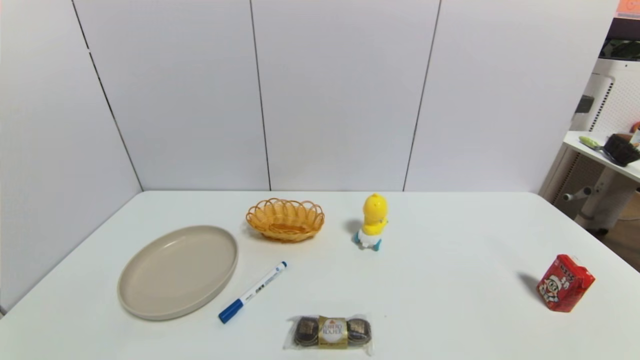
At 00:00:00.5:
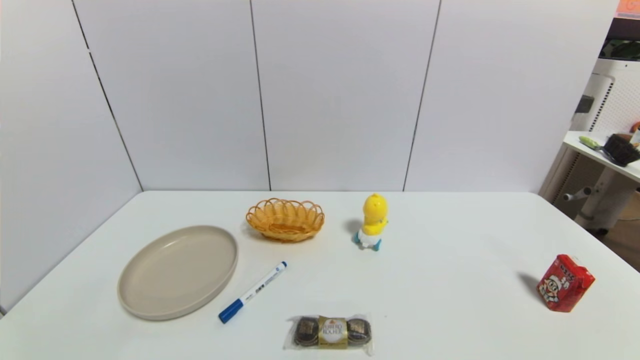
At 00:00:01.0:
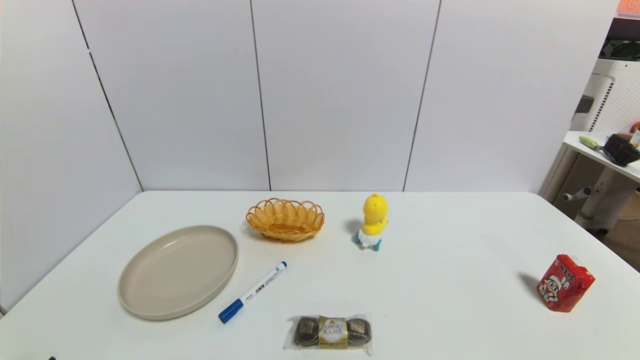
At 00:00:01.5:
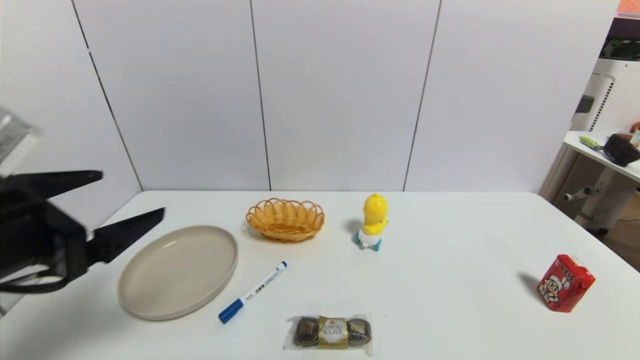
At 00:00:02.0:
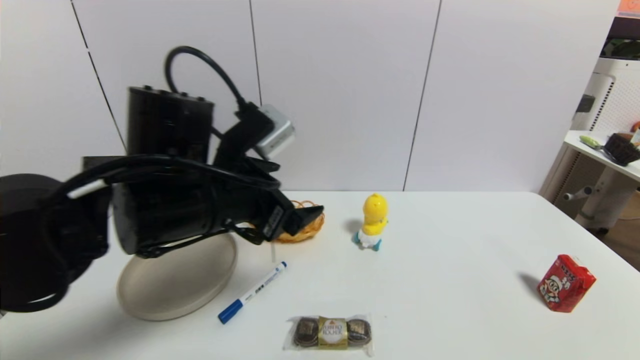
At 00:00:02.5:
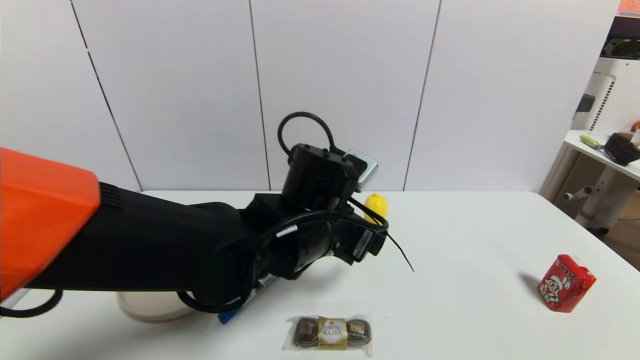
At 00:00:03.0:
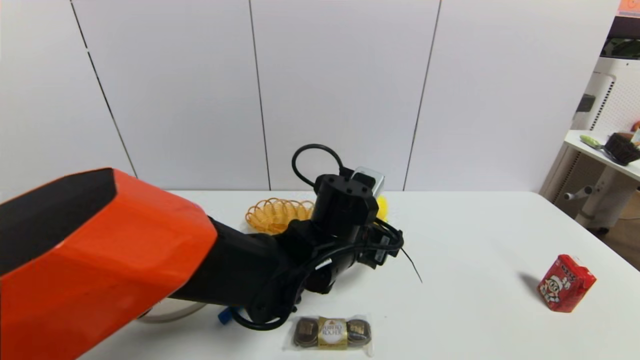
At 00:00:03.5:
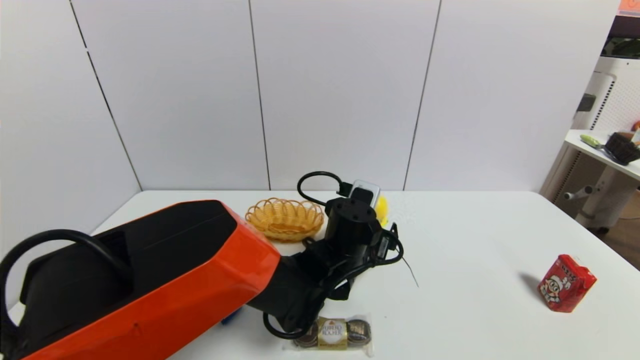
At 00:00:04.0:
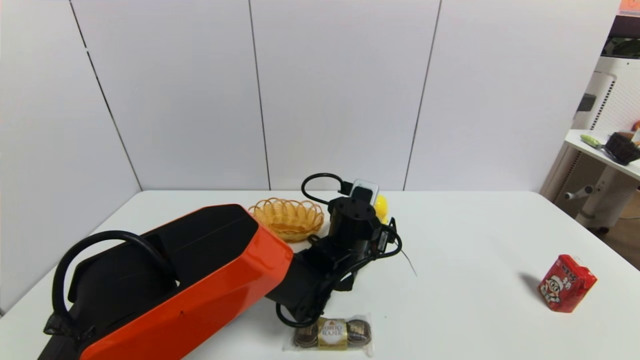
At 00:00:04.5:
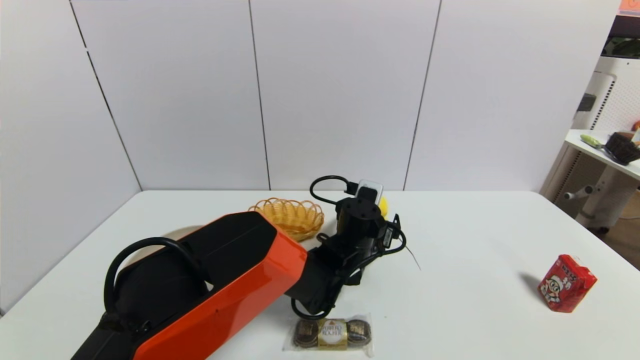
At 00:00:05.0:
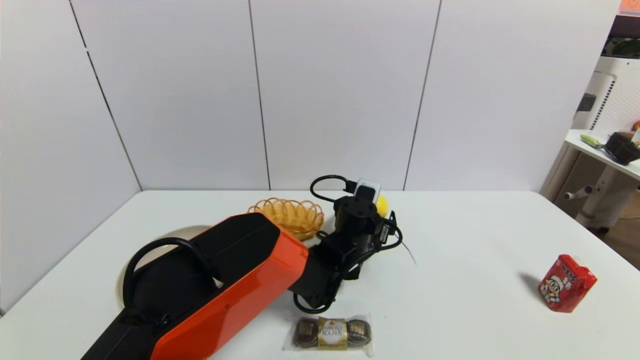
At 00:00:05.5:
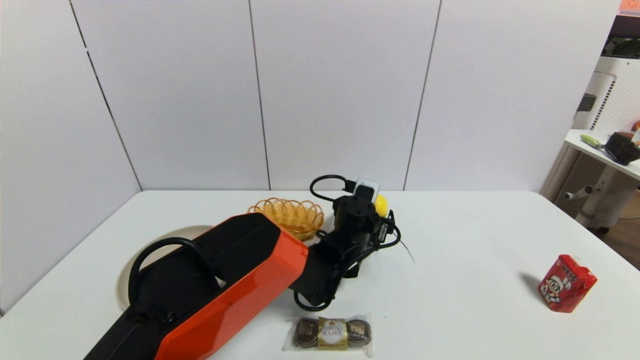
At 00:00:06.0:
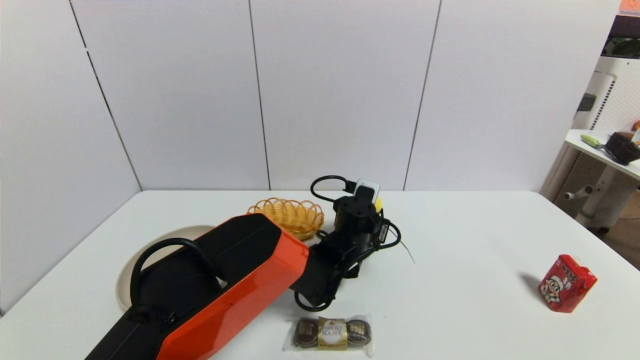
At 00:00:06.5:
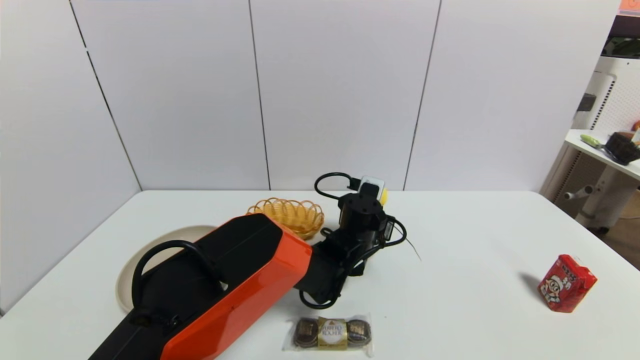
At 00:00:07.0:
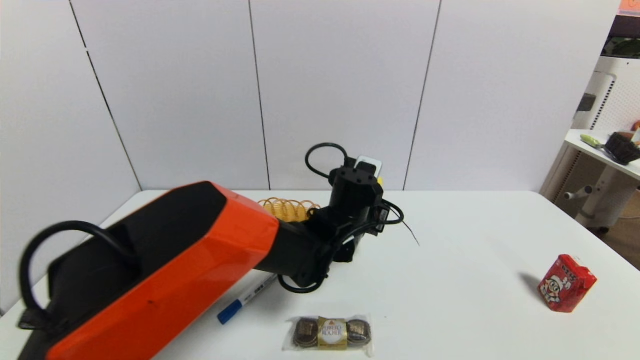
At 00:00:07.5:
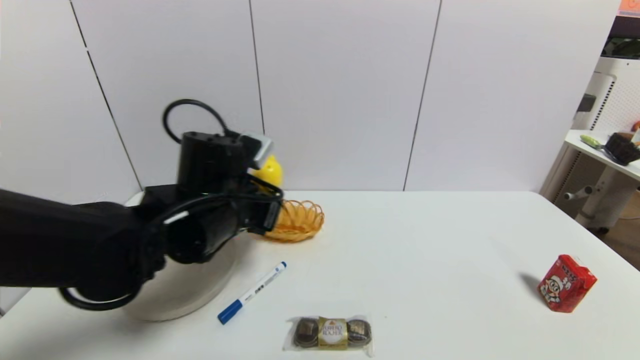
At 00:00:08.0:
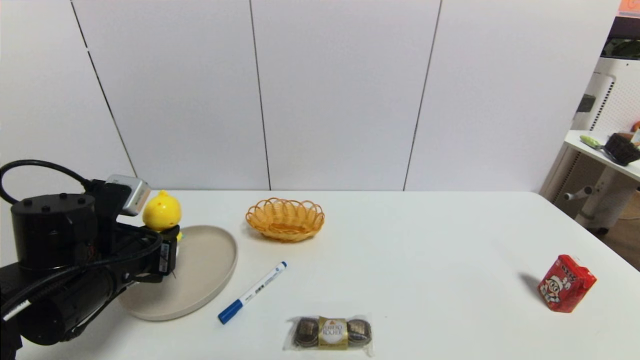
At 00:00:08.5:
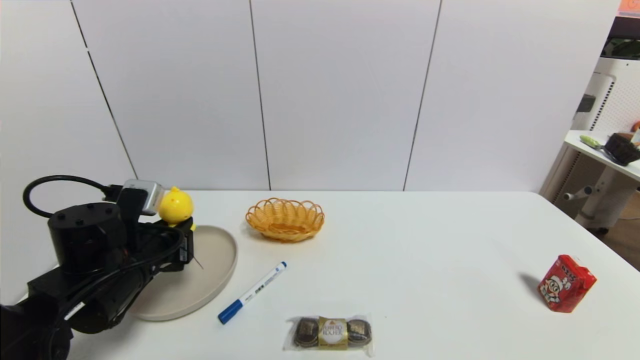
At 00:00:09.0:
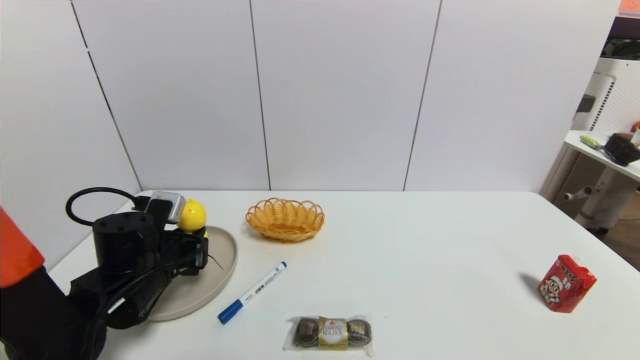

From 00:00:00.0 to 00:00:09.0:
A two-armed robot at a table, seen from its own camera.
Task of the whole recording: use a gripper to pick the target object and place on the brown plate.
Step, from 00:00:00.0 to 00:00:07.0: Grasp the duck toy with the left gripper.
From 00:00:00.0 to 00:00:02.0: The left gripper heads forward, to the right and upward, covering roughly 35 cm.
From 00:00:02.0 to 00:00:04.5: The left gripper moves to the right, downward and forward, approximately 25 cm.
From 00:00:04.5 to 00:00:07.0: The left gripper travels upward by about 5 cm, and closes.
From 00:00:07.0 to 00:00:09.0: The left gripper moves to the left, roughly 25 cm.

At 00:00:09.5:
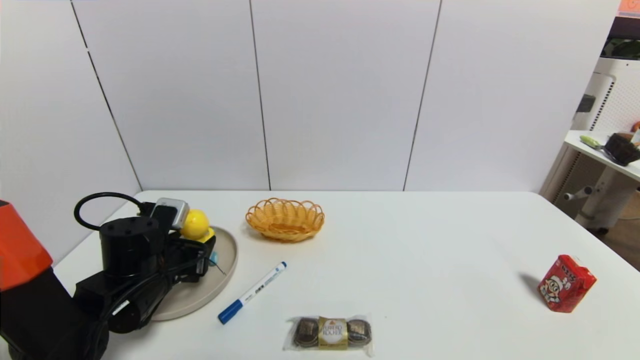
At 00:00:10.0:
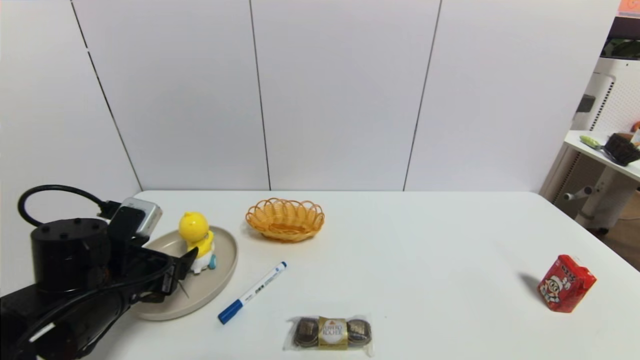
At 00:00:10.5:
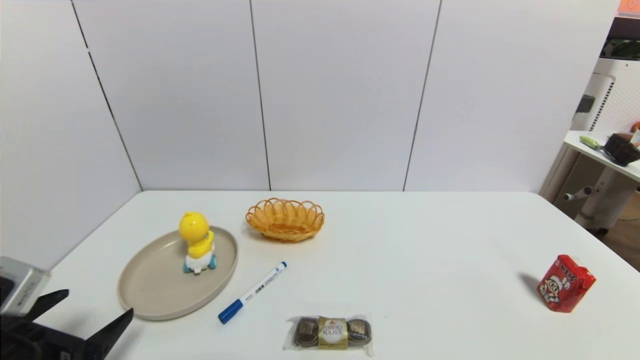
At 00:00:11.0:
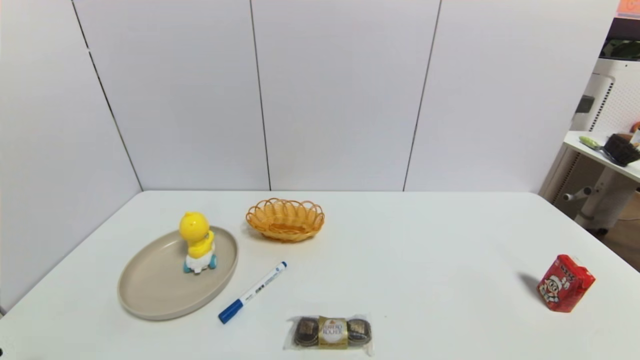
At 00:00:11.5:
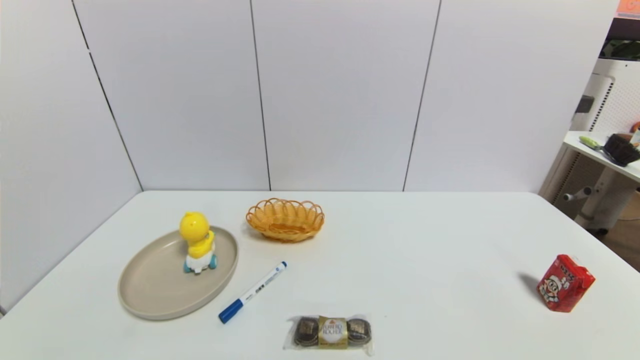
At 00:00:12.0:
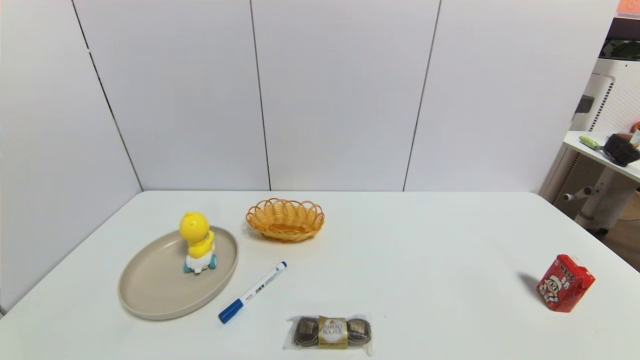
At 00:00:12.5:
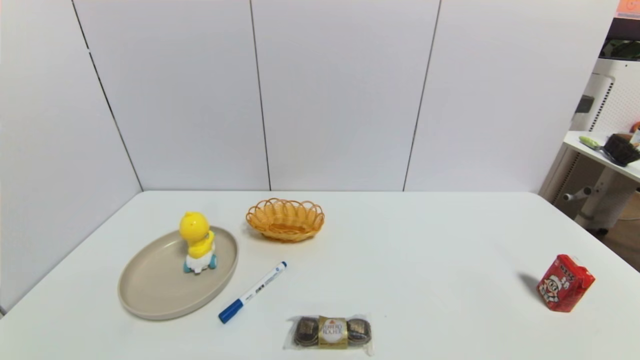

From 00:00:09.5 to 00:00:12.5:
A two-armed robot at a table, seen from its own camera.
Task of the whole recording: use a gripper to pick the target object and place on the brown plate.
From 00:00:09.5 to 00:00:11.0: The left gripper moves backward, roughly 25 cm, and opens its fingers.

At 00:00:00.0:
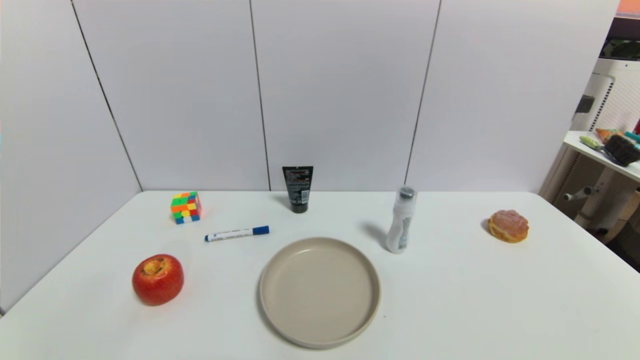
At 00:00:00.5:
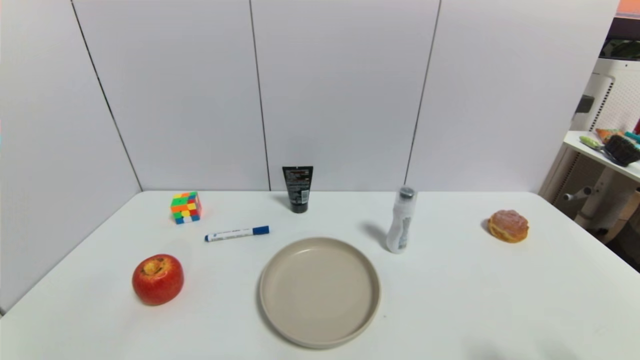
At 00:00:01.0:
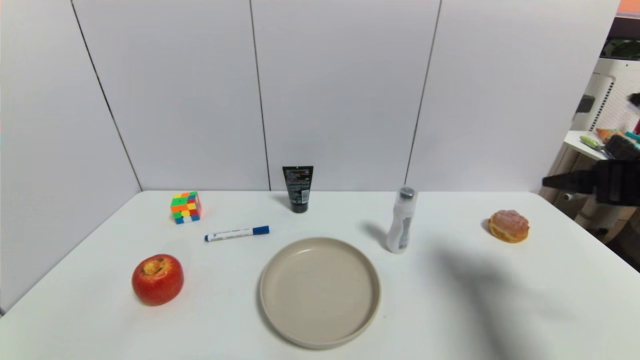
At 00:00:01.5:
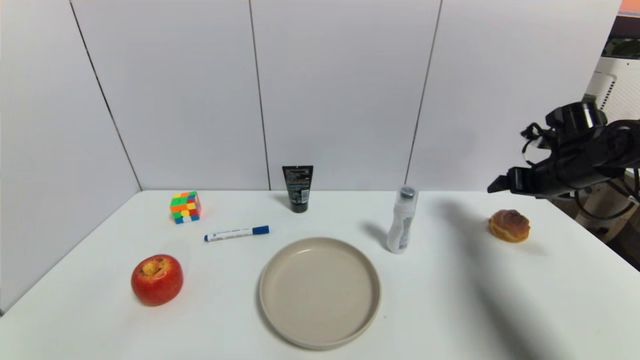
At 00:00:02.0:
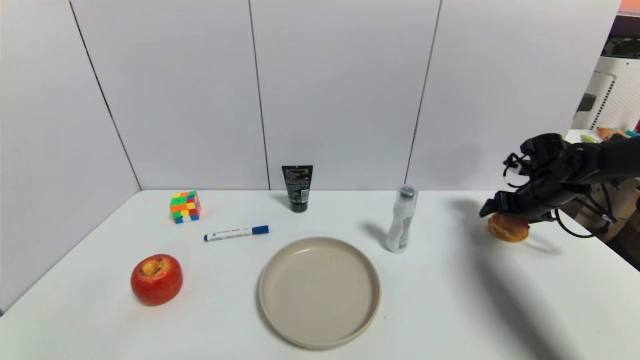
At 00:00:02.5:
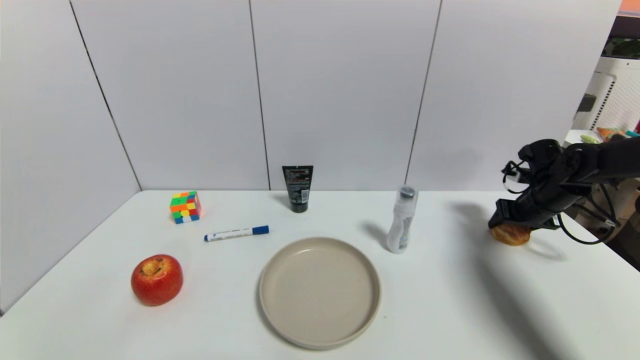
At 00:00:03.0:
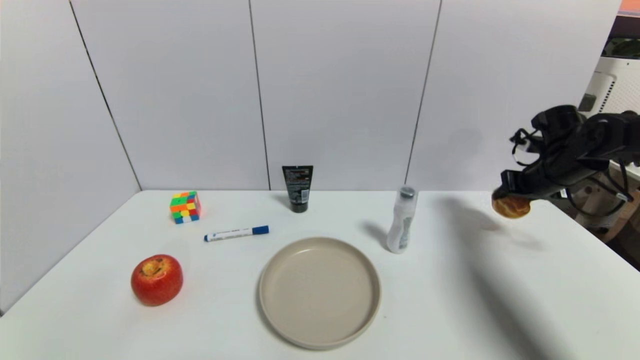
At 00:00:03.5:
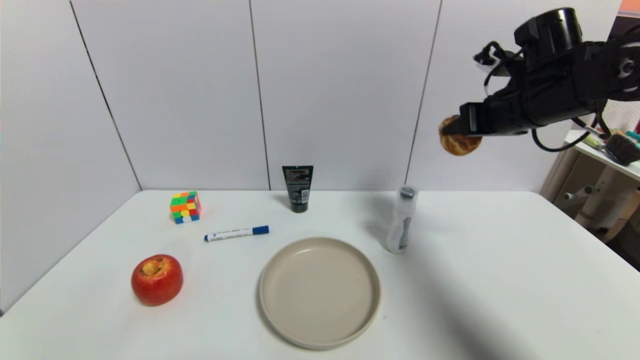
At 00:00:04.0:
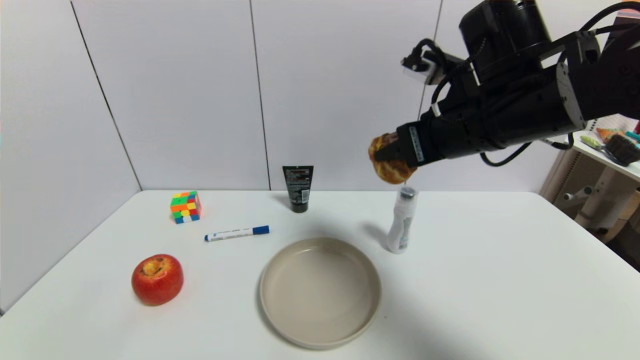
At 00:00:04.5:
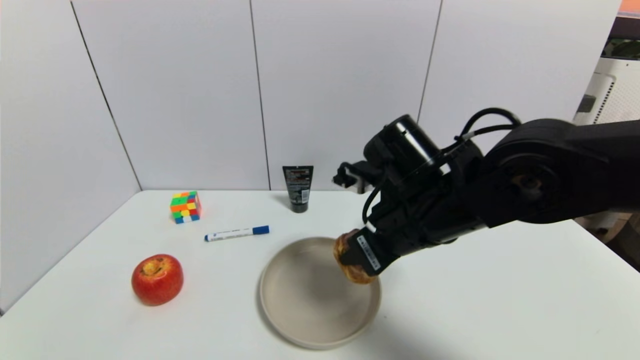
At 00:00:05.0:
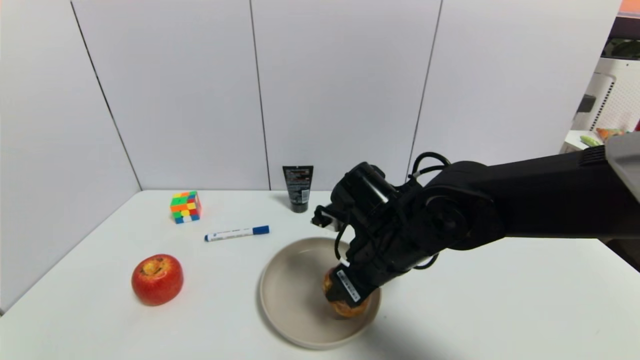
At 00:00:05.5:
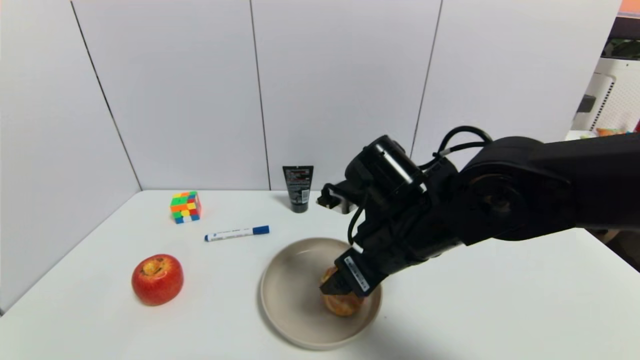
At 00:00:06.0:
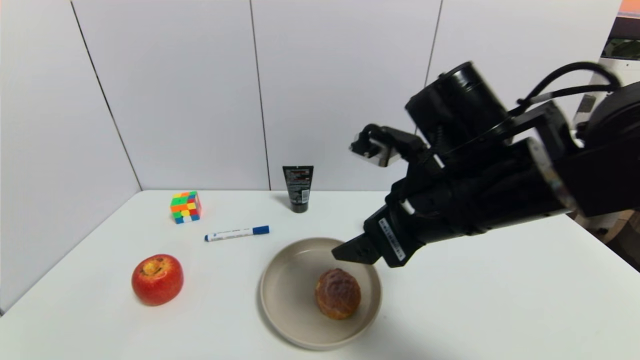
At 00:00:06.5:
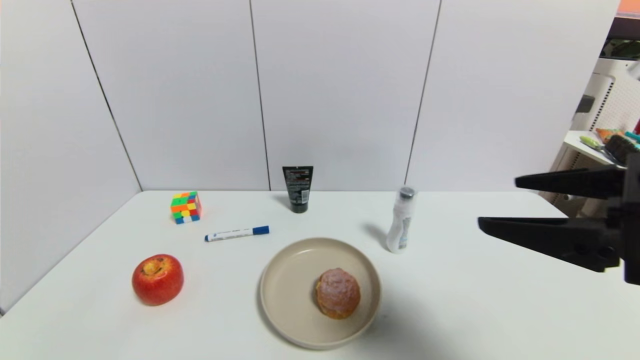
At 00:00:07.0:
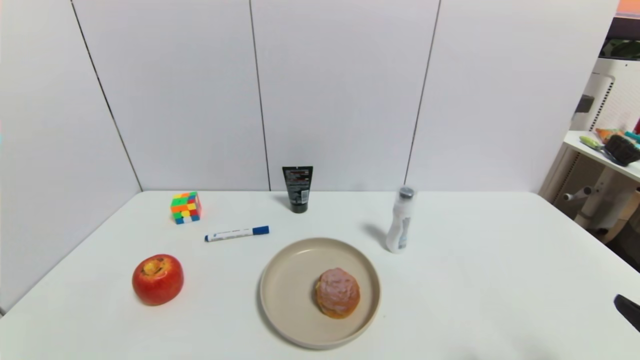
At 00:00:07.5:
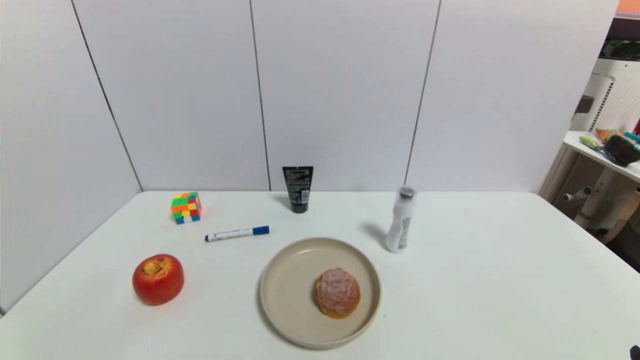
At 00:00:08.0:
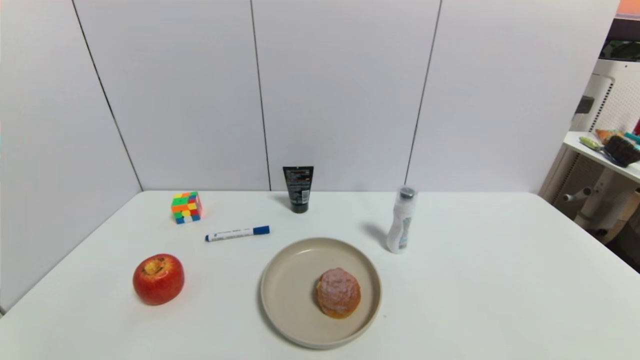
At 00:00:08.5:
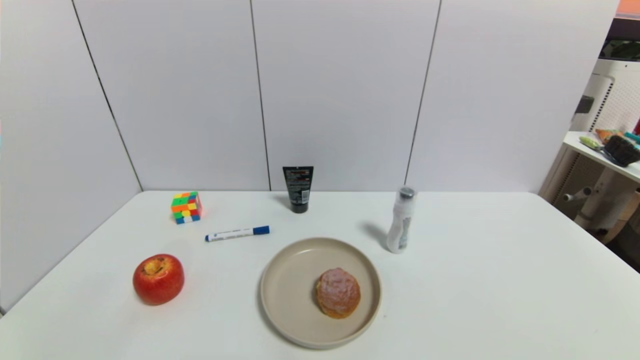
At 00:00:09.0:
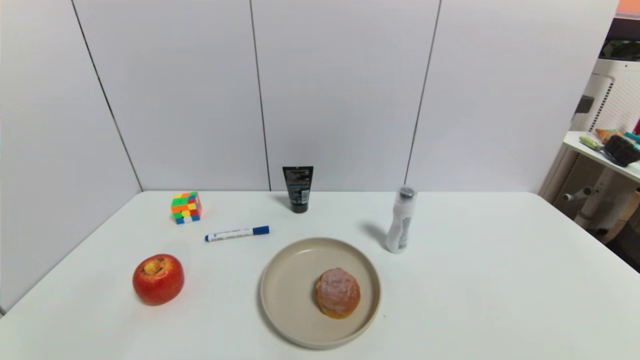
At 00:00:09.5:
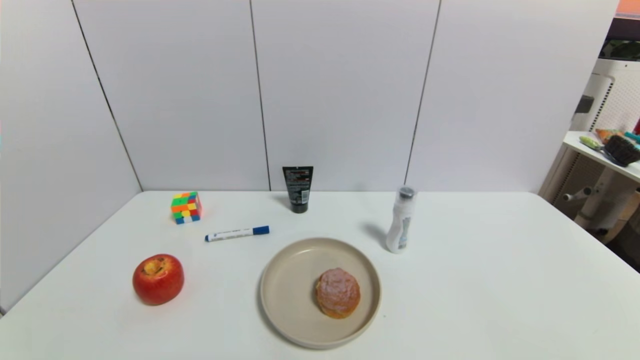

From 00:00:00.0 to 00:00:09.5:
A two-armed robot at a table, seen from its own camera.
Task of the whole recording: use a gripper to pick the target object and place on the brown plate.
Step, from 00:00:00.0 to 00:00:02.5: Grasp the round bread with the right gripper.
Step, from 00:00:03.0 to 00:00:05.5: Place the round bread on the brown plate with the right gripper.
From 00:00:00.0 to 00:00:02.0: The right gripper is displaced forward by about 40 cm.
From 00:00:02.0 to 00:00:04.0: The right gripper heads to the left, upward and backward, covering approximately 35 cm, and closes.
From 00:00:04.0 to 00:00:05.5: The right gripper heads downward and to the left, covering some 15 cm, and opens up.
From 00:00:05.5 to 00:00:07.5: The right gripper goes about 35 cm to the right and backward.
